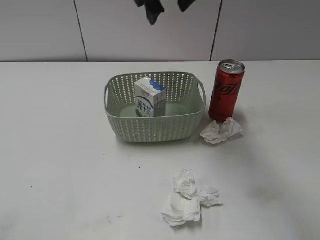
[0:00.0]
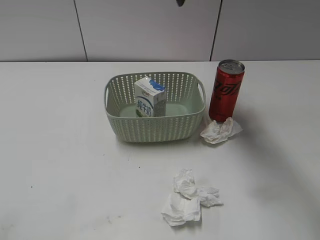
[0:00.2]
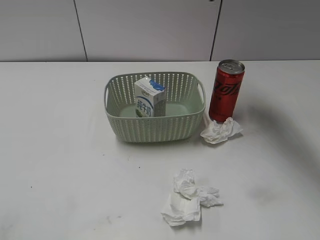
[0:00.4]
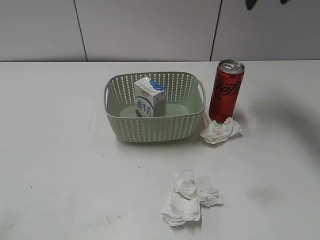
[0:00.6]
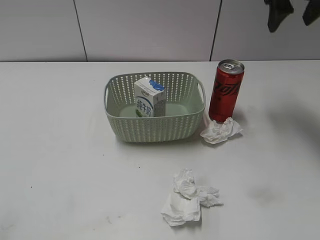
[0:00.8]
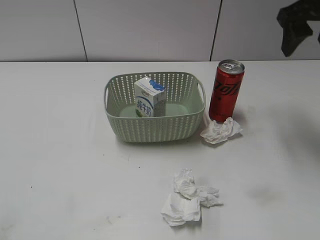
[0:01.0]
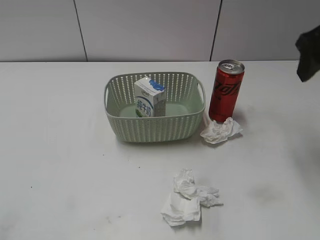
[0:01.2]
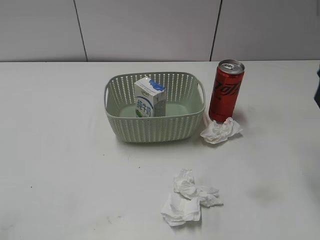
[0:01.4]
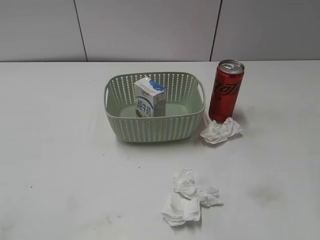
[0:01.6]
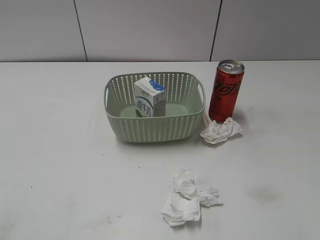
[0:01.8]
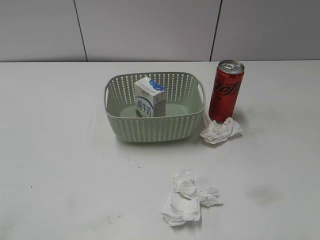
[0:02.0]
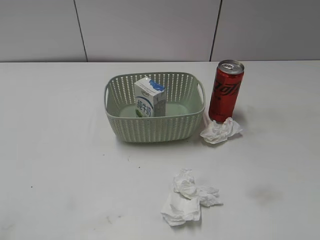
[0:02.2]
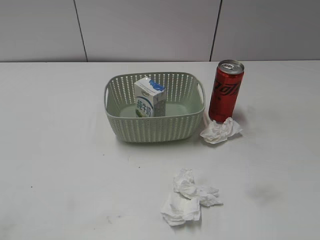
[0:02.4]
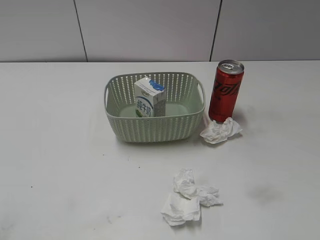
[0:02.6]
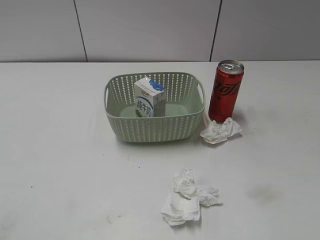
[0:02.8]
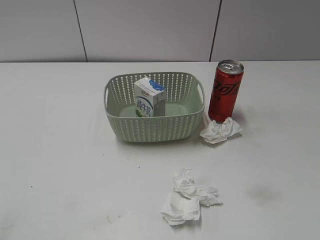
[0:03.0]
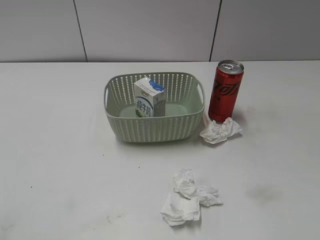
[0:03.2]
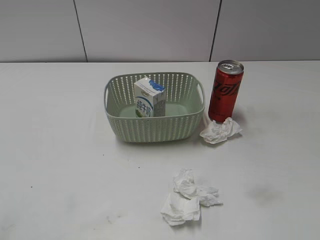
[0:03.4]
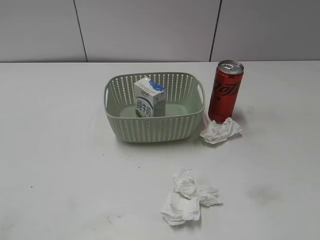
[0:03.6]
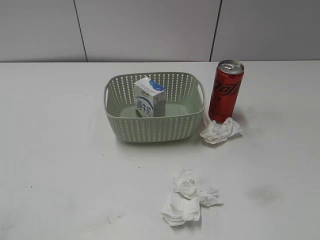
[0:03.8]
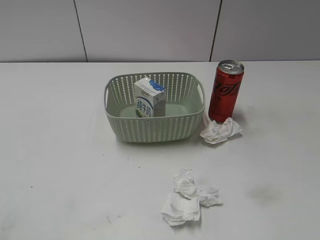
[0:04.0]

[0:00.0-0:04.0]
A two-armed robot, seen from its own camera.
0:00.0 to 0:01.4: The right gripper is displaced to the right and backward by approximately 30 cm.

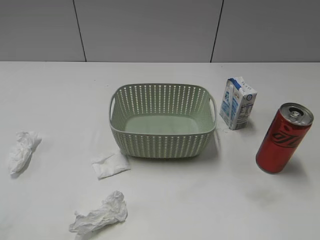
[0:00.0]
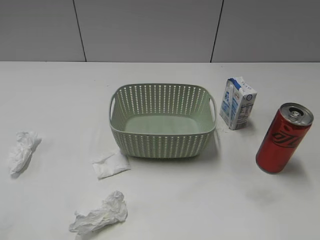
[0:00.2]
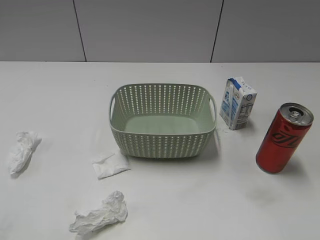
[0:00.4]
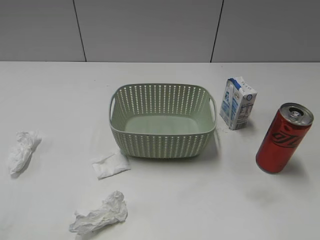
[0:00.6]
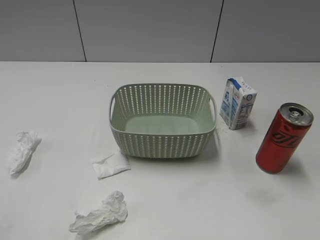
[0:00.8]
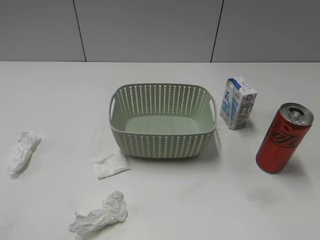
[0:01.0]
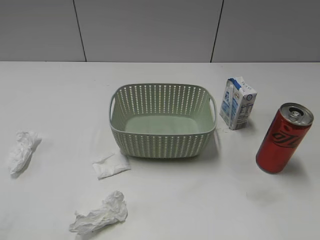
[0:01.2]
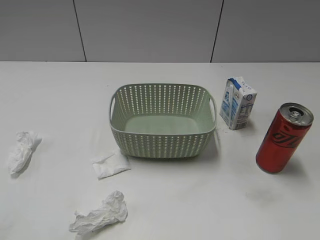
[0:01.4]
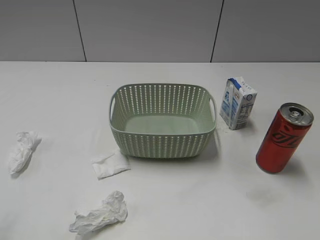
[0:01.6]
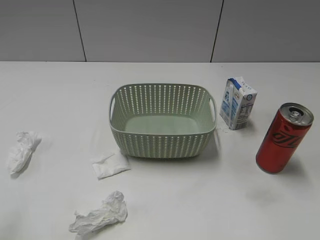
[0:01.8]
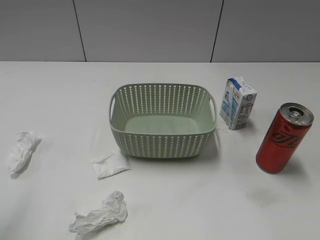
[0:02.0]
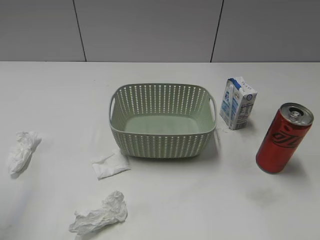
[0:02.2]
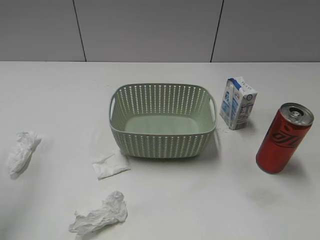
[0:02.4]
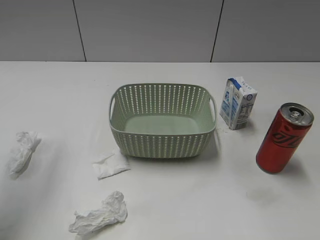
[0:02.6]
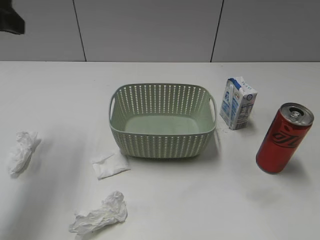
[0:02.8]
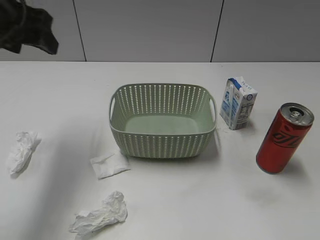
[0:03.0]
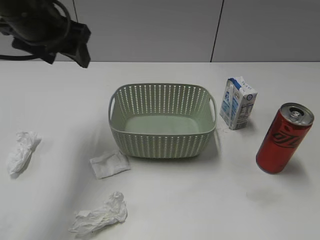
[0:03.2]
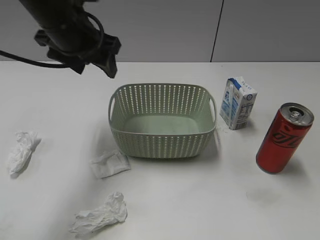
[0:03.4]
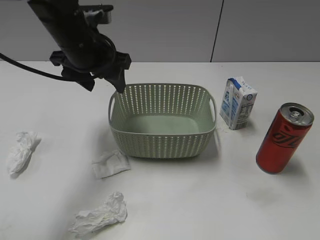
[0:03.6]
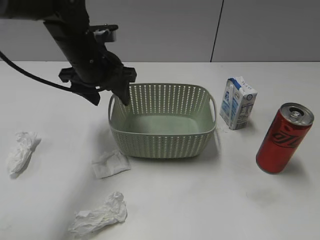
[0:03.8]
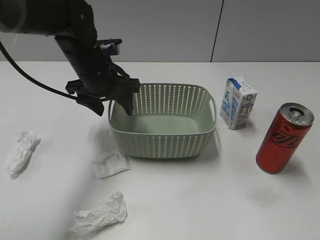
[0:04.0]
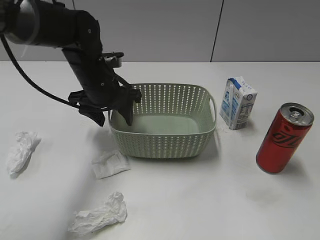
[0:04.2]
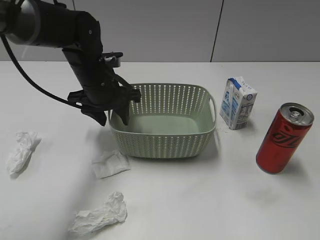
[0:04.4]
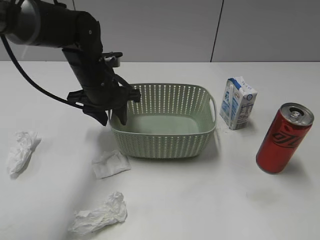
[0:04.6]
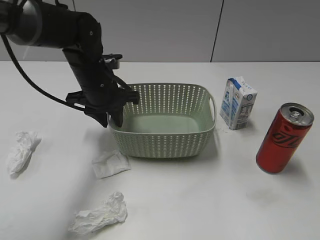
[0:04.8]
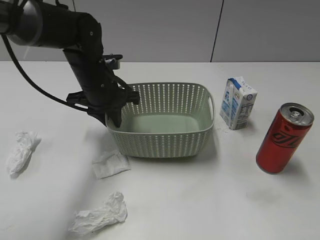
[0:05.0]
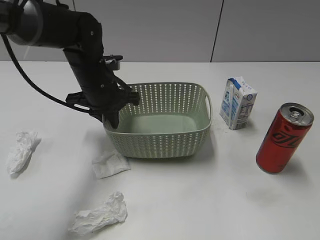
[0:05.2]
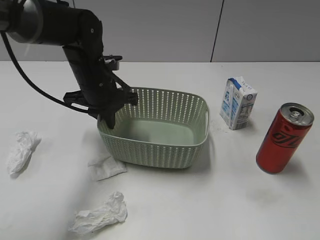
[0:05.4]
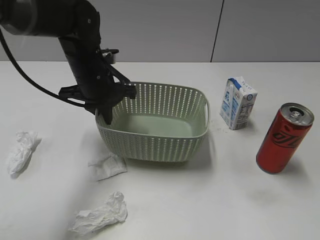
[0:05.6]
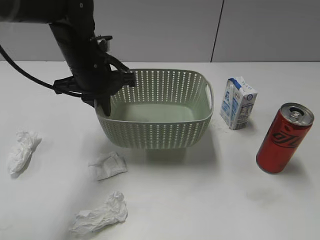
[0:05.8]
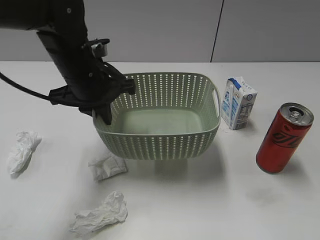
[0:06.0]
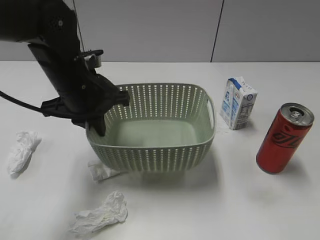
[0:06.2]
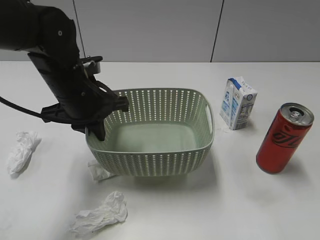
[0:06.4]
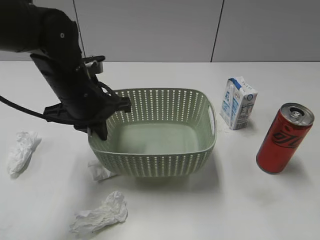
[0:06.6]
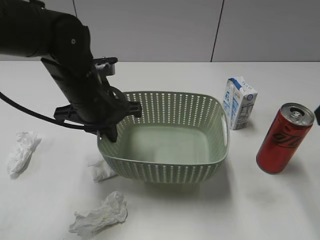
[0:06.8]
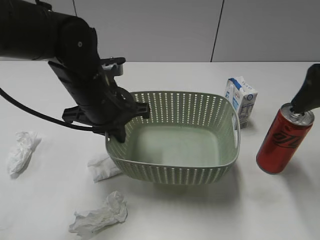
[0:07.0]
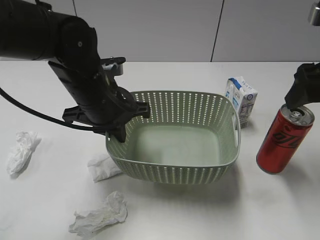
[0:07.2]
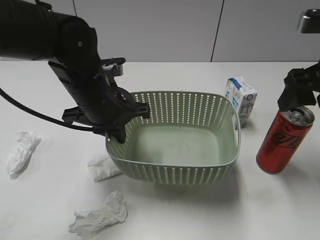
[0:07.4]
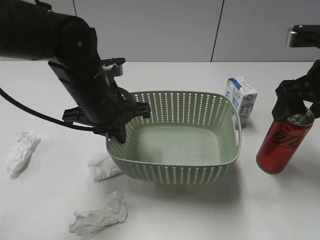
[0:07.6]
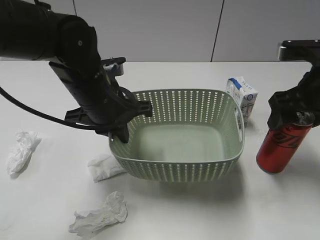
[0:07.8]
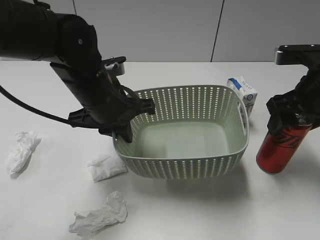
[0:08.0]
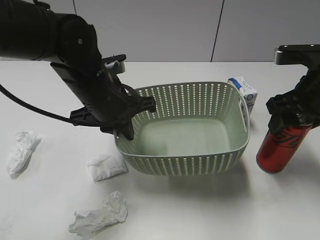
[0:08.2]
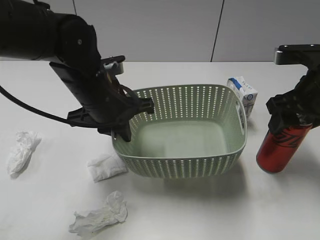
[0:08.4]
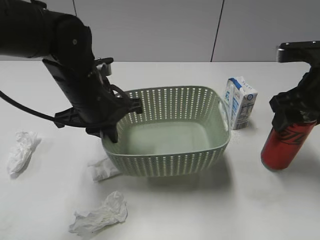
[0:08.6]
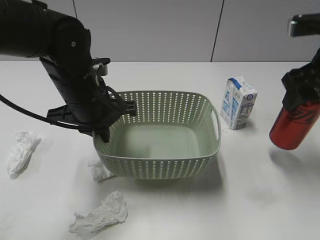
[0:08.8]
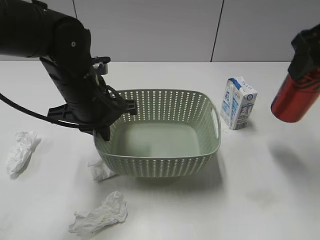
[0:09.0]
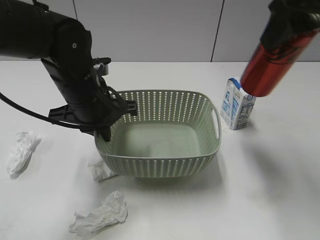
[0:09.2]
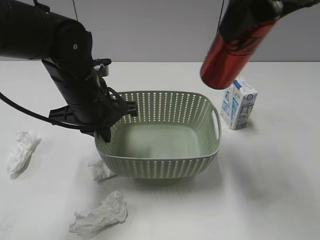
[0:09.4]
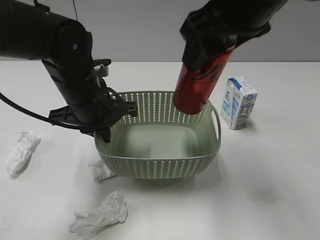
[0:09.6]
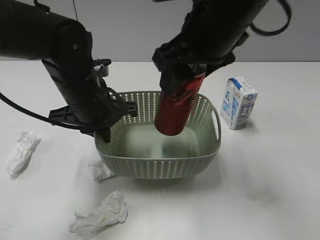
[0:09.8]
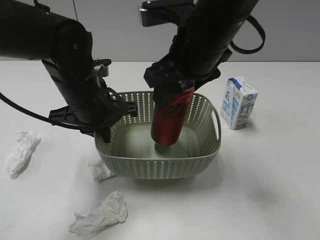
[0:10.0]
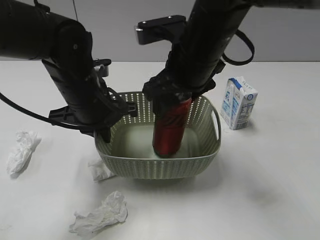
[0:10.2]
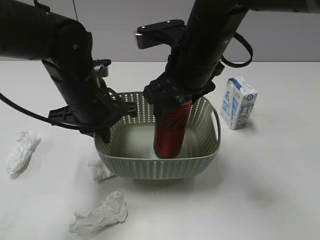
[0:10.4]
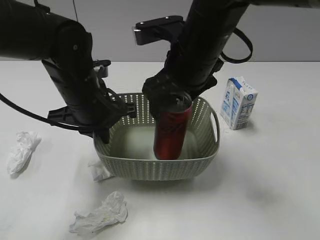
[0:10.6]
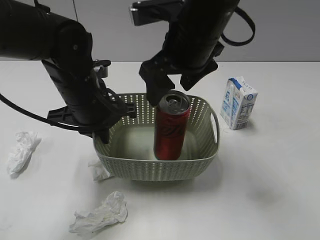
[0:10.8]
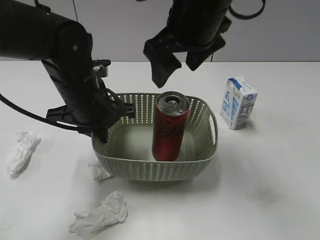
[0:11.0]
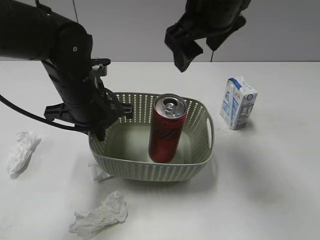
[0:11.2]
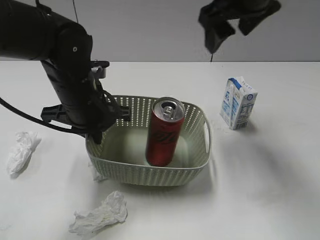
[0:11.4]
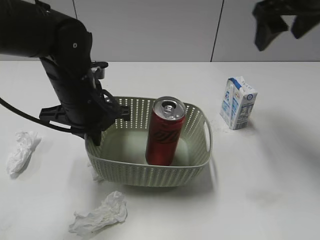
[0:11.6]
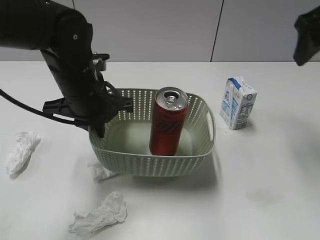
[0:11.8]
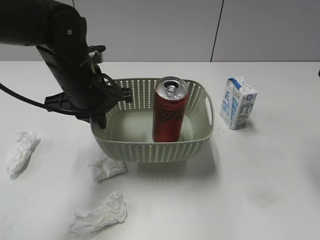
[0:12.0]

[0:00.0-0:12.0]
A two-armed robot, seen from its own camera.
Step, 0:02.8 to 0:05.2: Grasp the basket with left gripper.
Step, 0:05.4 to 0:06.6: Lift the basket with left gripper.
Step, 0:06.8 to 0:08.4: Grasp the cola can with right gripper.
Step, 0:08.6 to 0:11.0: Place the cola can in the basket with right gripper.
0:01.6 to 0:03.0: The left gripper shifts roughly 25 cm forward.
0:03.0 to 0:04.4: The left gripper is displaced downward and to the right by approximately 20 cm.
0:04.4 to 0:06.0: The left gripper moves backward and upward, some 5 cm, and closes up.
0:06.0 to 0:07.6: The right gripper goes about 25 cm forward, and opens.
0:07.6 to 0:09.0: The right gripper goes roughly 10 cm upward, and closes its fingers.
0:09.0 to 0:10.4: The right gripper moves to the left and downward, some 20 cm.
0:10.4 to 0:12.0: The right gripper is displaced to the right and upward by about 25 cm, and opens, then closes once more.

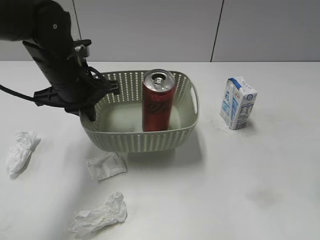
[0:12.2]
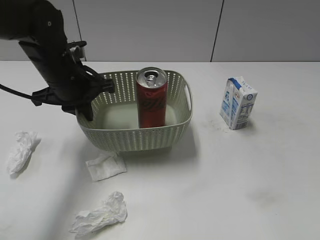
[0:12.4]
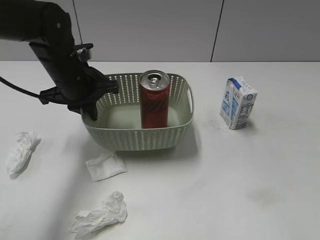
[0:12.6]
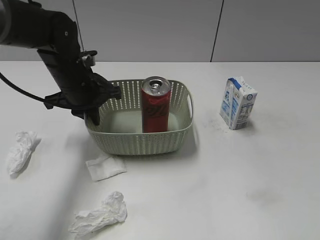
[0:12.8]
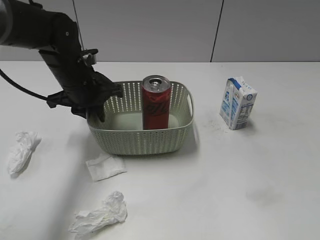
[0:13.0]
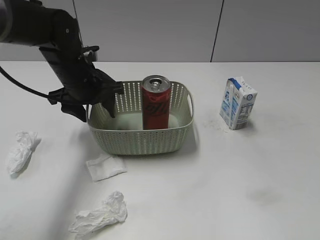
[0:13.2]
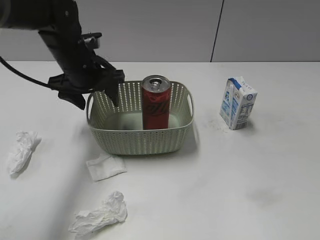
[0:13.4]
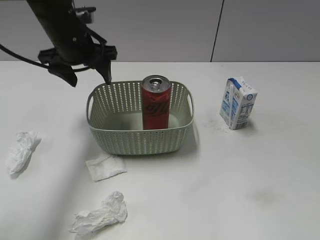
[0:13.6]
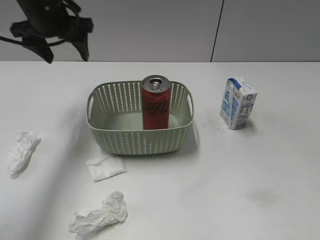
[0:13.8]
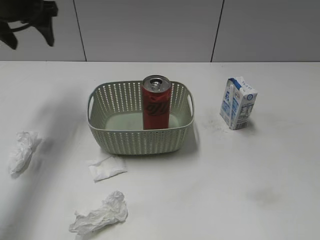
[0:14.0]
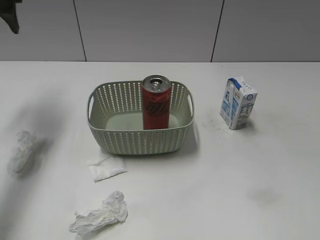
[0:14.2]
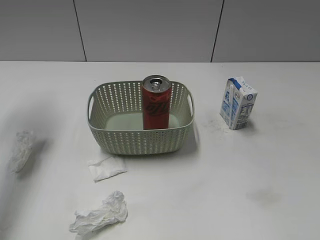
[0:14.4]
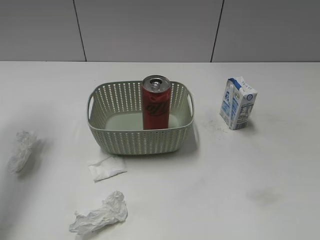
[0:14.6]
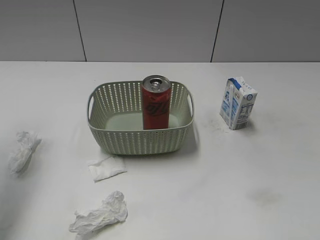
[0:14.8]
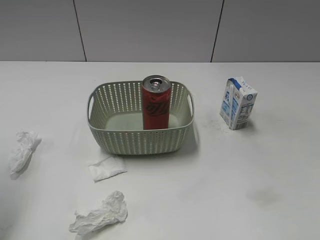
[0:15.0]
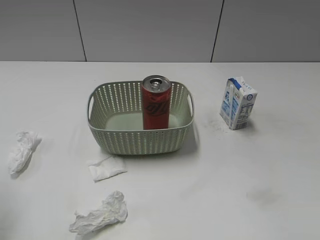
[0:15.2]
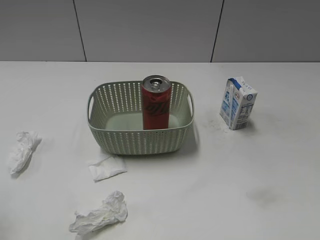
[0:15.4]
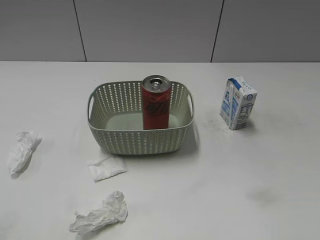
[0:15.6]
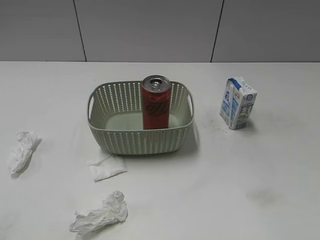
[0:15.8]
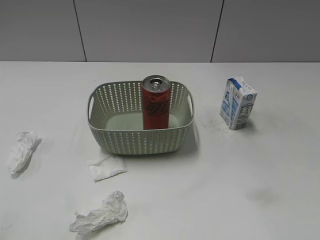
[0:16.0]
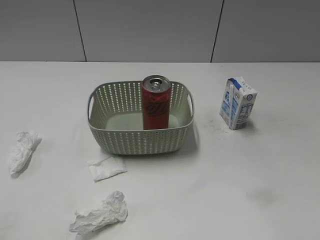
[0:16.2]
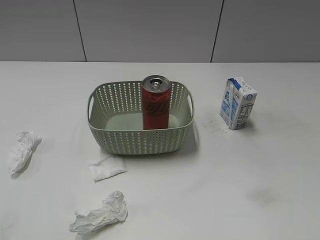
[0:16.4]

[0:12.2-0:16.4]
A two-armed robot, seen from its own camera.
0:12.2 to 0:13.6: The right gripper moves backward, approximately 20 cm, and closes up. The left gripper goes roughly 5 cm forward, and opens.
0:13.6 to 0:15.0: The left gripper heads backward, to the left and upward, covering roughly 25 cm; the right gripper opens.
0:15.0 to 0:16.4: The left gripper moves backward, some 20 cm.

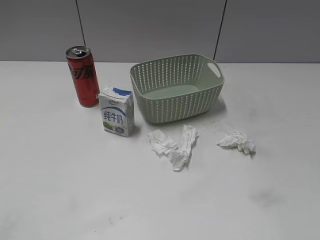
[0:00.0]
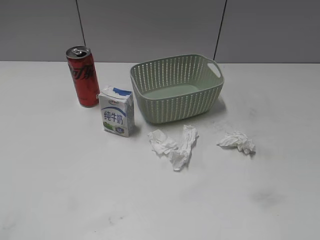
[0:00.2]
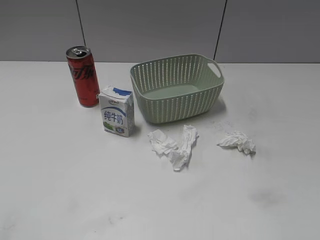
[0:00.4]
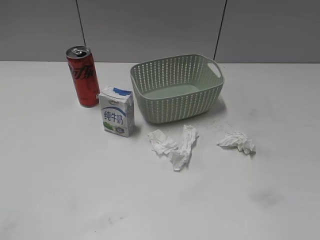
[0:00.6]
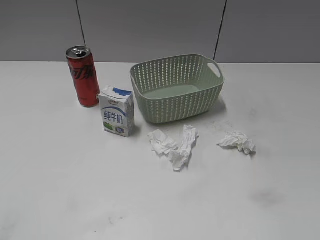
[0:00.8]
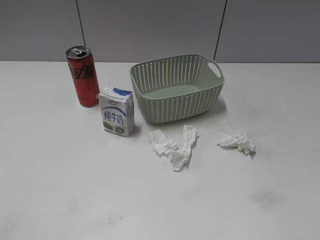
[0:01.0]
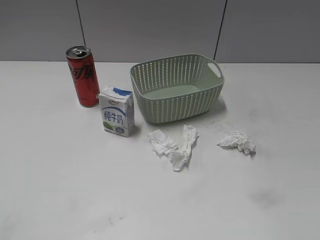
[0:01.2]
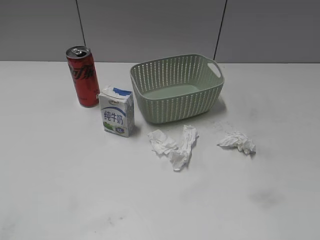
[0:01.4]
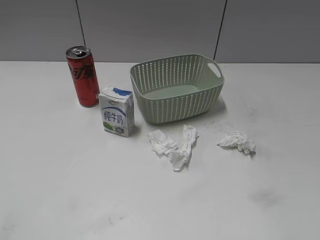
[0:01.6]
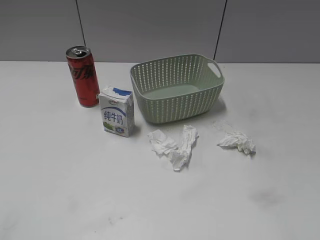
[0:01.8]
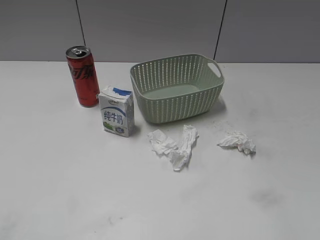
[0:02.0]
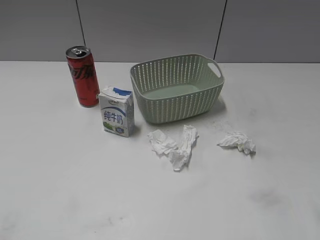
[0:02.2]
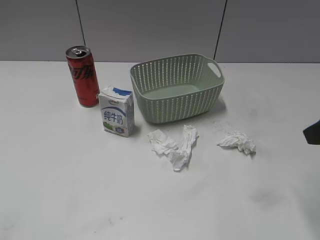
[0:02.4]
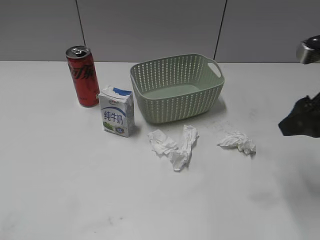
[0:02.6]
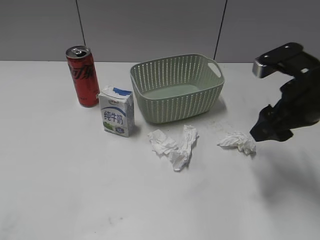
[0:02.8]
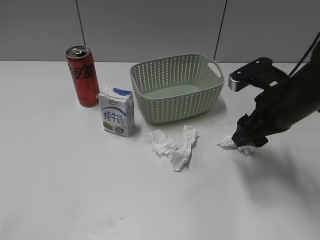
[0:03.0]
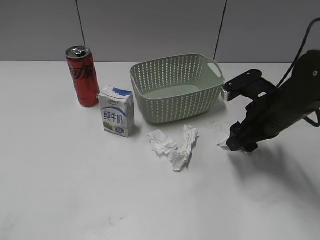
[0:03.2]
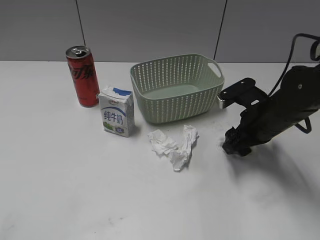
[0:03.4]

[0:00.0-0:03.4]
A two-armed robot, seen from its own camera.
0:01.6 to 0:03.4: The right gripper is displaced forward and downward by approximately 30 cm.
